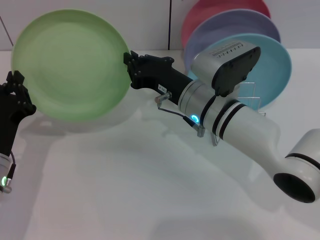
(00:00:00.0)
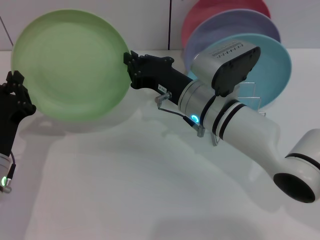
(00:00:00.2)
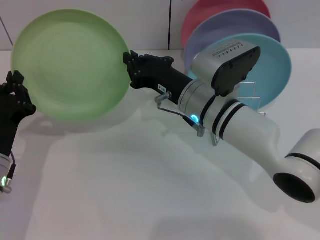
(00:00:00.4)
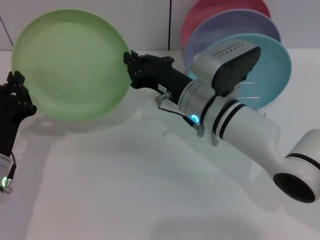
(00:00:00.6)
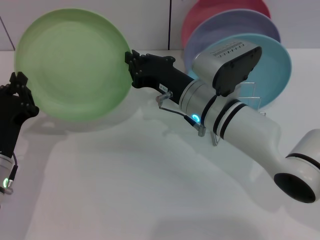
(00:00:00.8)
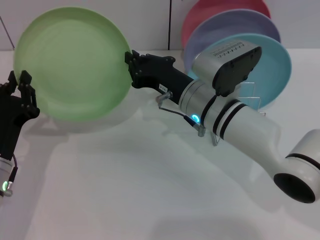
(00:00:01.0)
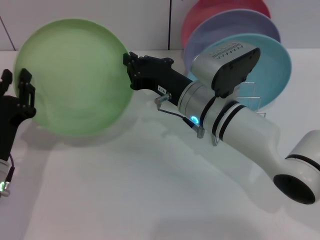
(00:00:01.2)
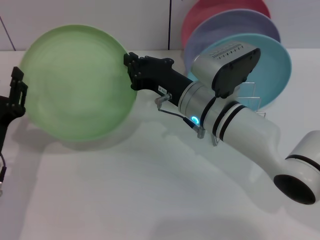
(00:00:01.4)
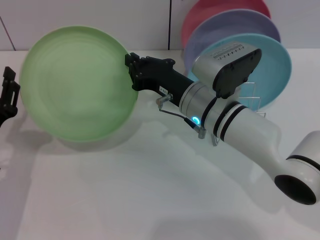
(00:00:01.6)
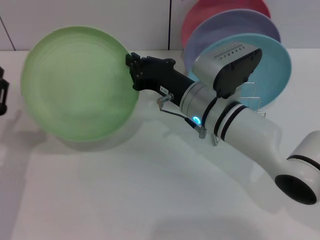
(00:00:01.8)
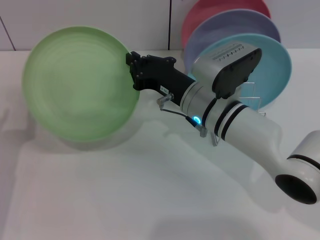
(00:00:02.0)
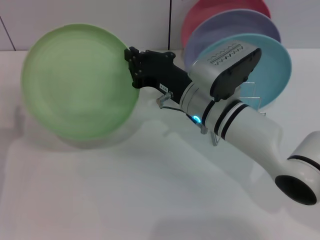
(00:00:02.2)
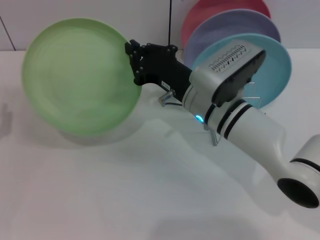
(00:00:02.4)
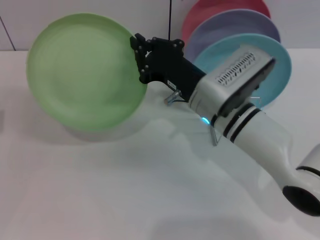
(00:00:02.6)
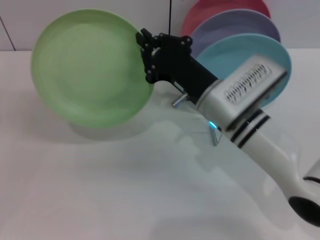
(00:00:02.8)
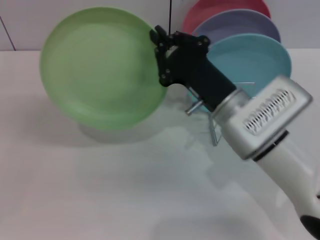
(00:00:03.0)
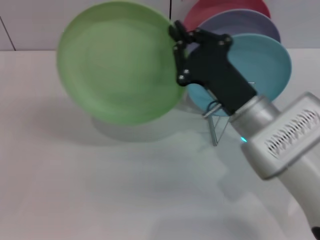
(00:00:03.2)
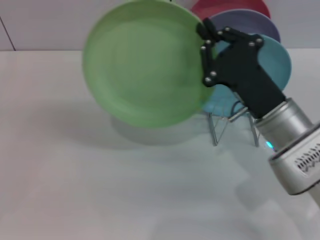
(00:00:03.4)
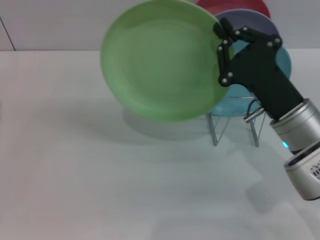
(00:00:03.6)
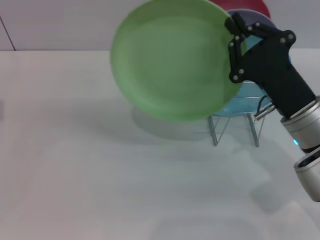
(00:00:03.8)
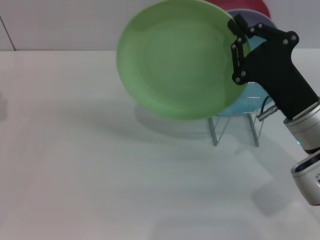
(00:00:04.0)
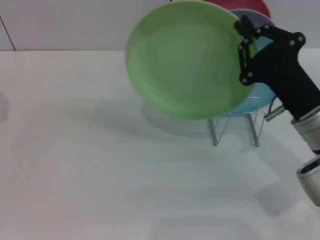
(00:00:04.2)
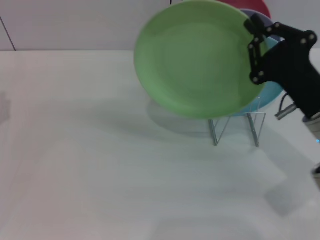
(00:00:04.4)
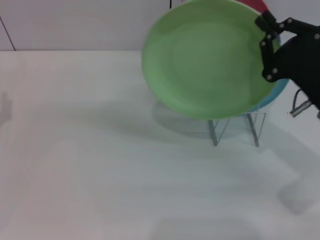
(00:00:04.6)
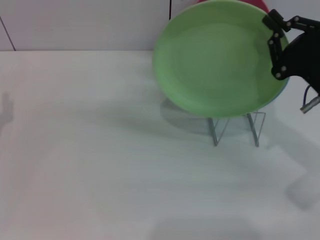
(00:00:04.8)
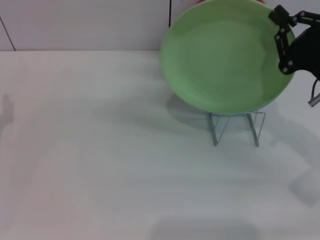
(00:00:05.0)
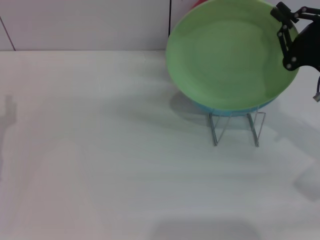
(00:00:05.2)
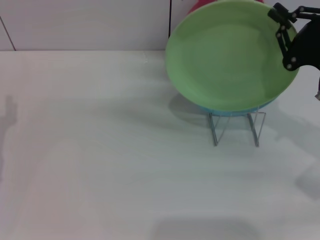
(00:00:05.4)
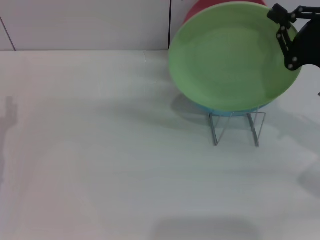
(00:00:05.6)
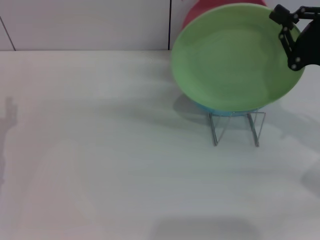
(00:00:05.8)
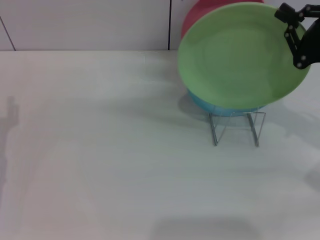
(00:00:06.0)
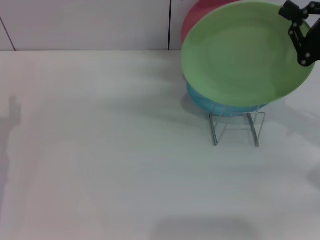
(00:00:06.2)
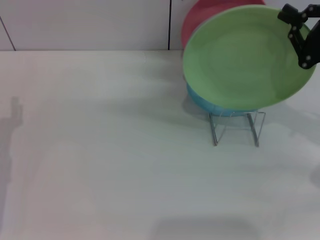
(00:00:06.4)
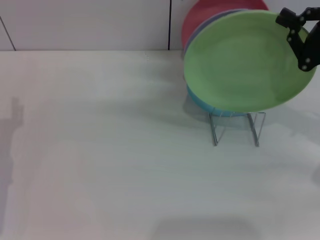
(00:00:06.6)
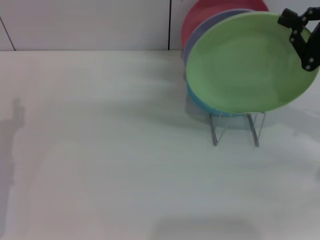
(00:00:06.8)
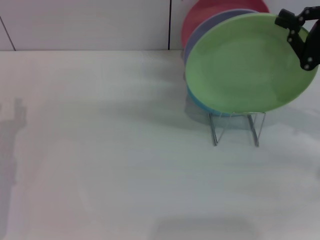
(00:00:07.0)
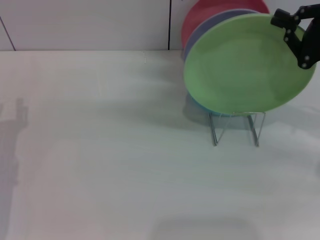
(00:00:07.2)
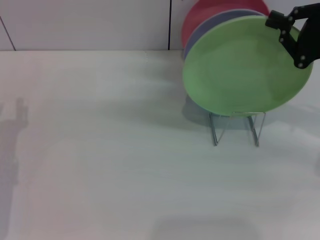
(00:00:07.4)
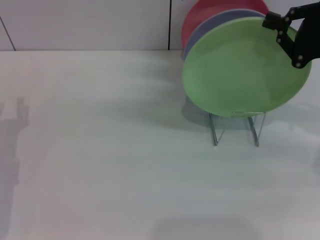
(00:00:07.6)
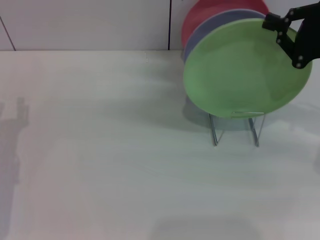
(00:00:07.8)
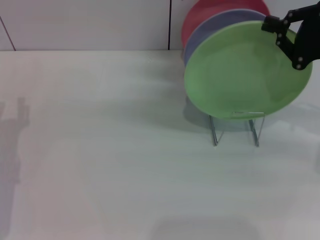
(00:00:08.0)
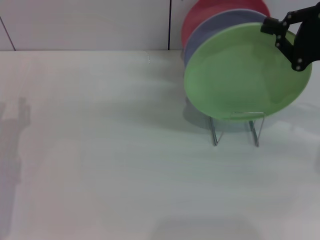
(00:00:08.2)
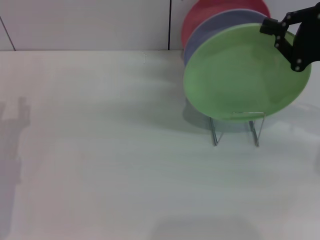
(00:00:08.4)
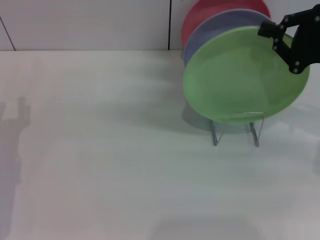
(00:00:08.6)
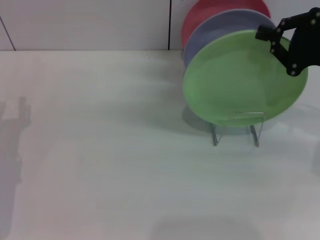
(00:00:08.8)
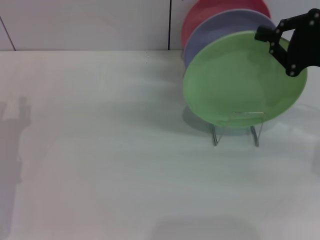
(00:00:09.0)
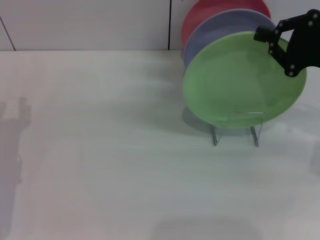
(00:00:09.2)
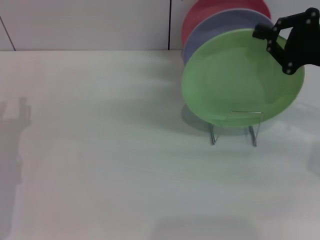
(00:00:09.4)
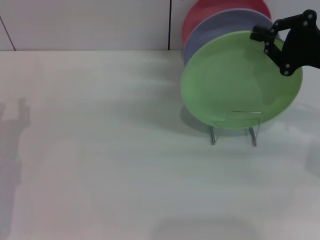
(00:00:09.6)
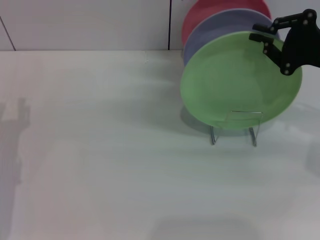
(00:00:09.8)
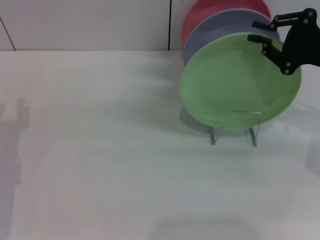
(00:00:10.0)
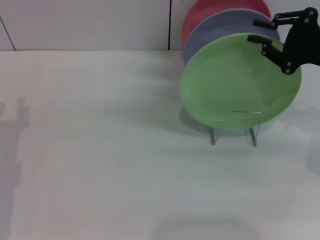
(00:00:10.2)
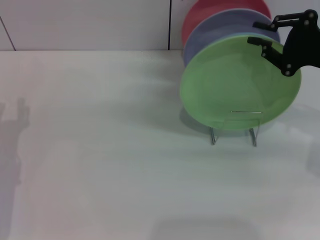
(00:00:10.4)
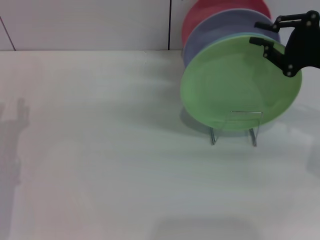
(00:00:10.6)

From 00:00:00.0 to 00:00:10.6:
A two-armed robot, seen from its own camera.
Task of the whole recording: Grip the plate with one hand, pass it to the other, then set it on the shelf.
Step, from 00:00:01.8 to 00:00:10.4: Place the plate on the shelf with the right gripper.
From 00:00:00.0 to 00:00:01.6: The left gripper opens up.
From 00:00:01.6 to 00:00:03.0: The left gripper shifts roughly 10 cm to the left. The right gripper ends up about 5 cm from where it was.
From 00:00:03.0 to 00:00:04.6: The right gripper is displaced to the right by some 15 cm.
From 00:00:04.6 to 00:00:06.0: The right gripper travels to the right by roughly 5 cm.
From 00:00:06.0 to 00:00:07.6: The grippers move only a little.
From 00:00:07.6 to 00:00:09.0: Both grippers stay about where they are.
From 00:00:09.0 to 00:00:10.6: The right gripper opens up.

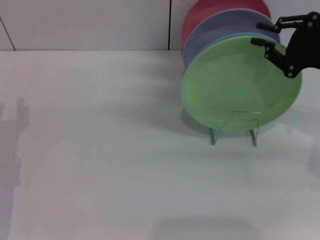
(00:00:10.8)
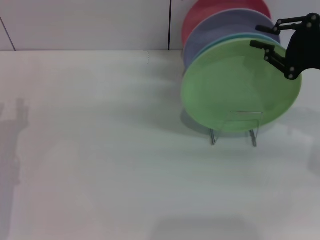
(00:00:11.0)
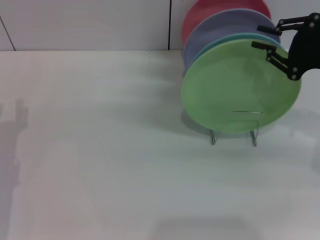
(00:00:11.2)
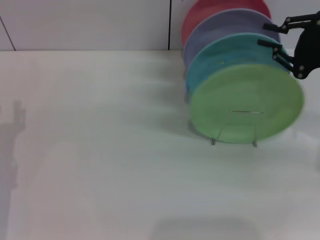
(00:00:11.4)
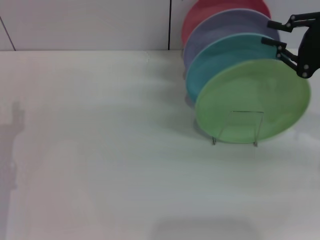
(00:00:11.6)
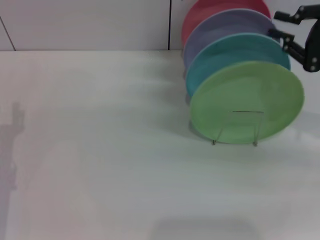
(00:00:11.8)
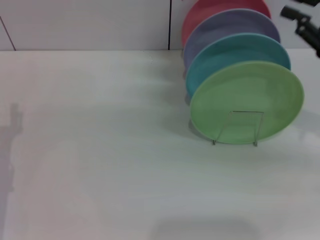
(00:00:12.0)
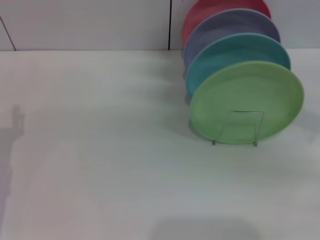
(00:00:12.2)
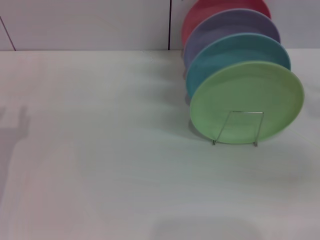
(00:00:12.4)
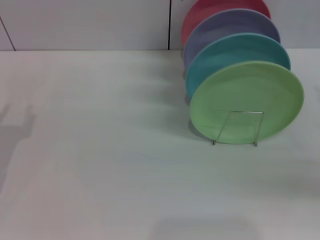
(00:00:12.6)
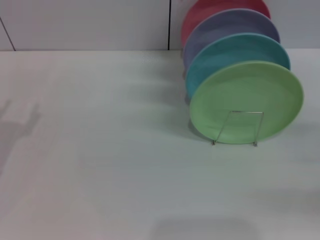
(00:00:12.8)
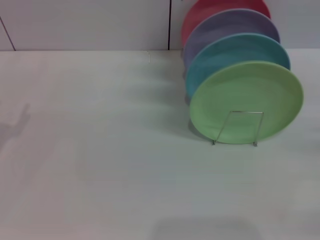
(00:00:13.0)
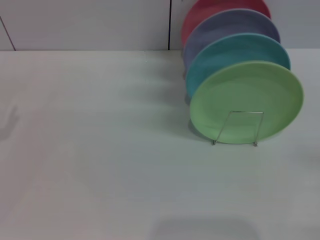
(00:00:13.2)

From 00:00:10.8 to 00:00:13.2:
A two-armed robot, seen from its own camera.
Task of the whole recording: Grip the plate with one hand, pass it to the other, then set it on the shelf.
From 00:00:12.0 to 00:00:13.2: The right gripper goes approximately 20 cm downward, backward and to the right, and opens its fingers.
